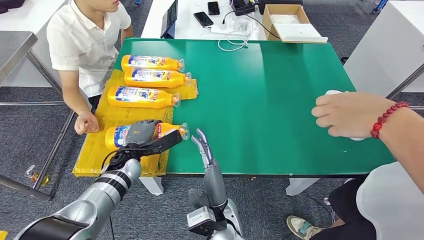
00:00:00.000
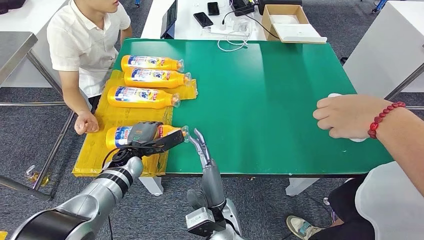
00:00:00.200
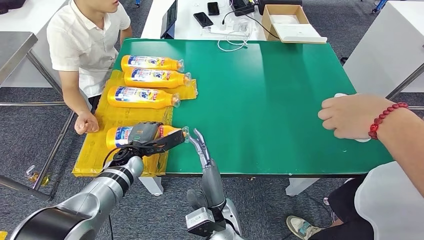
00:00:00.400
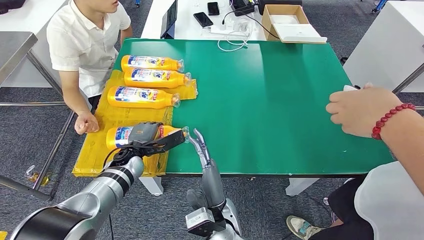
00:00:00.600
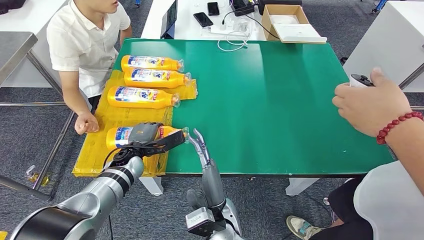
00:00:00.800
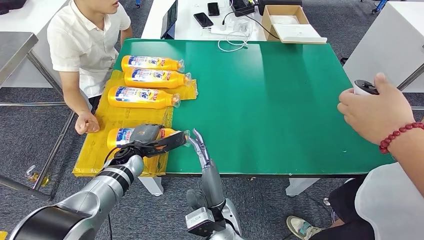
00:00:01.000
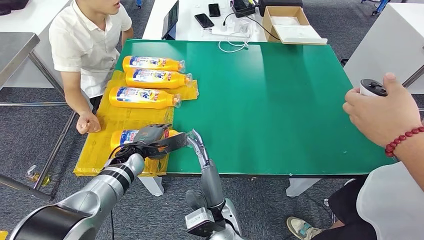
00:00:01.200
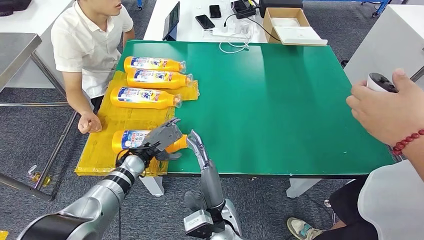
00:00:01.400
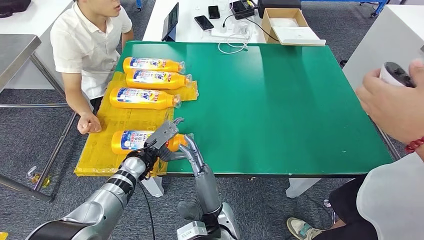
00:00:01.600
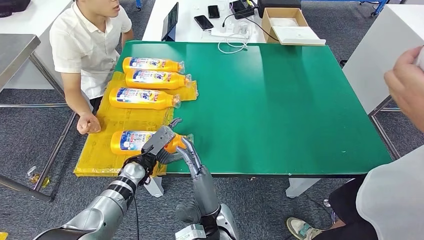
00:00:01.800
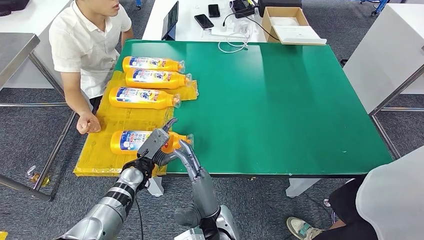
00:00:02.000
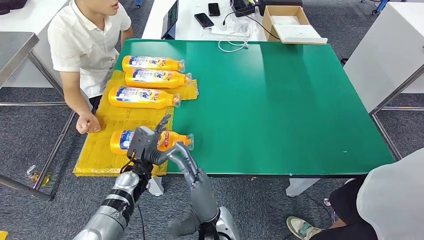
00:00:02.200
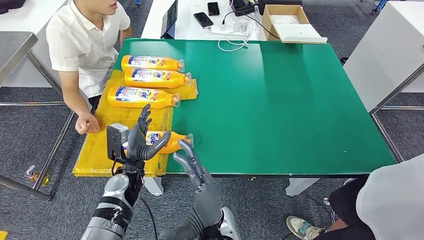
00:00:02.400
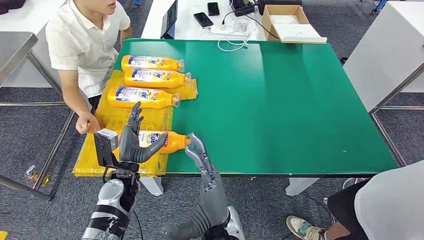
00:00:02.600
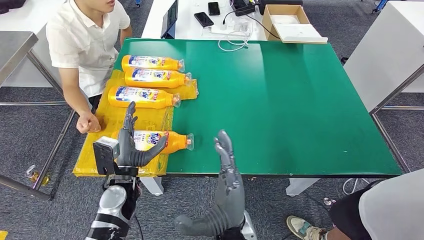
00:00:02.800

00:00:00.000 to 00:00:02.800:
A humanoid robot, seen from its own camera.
Step, 00:00:00.000 to 00:00:02.800: Flip the bottle to face forward.
